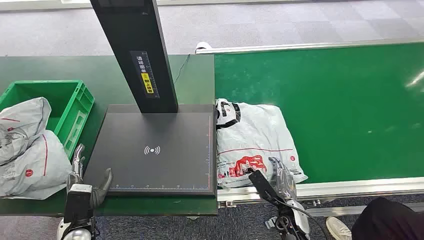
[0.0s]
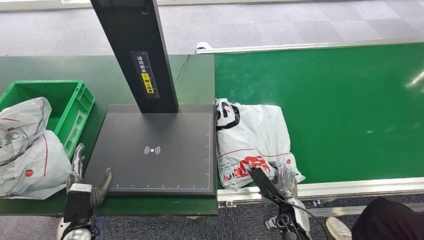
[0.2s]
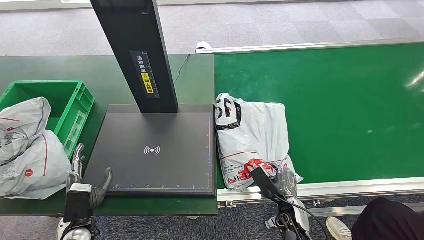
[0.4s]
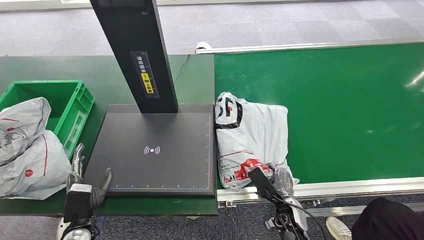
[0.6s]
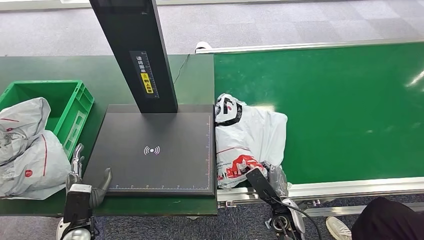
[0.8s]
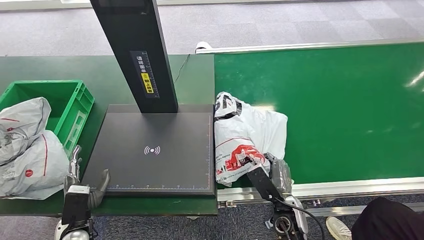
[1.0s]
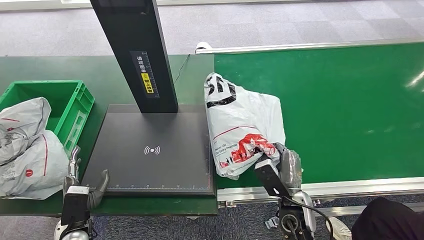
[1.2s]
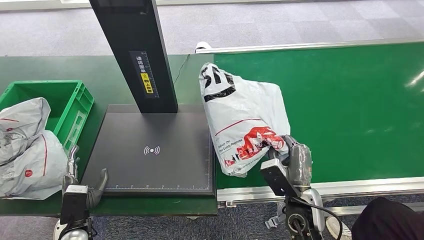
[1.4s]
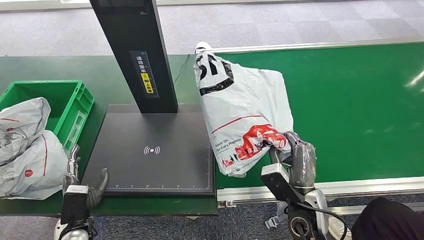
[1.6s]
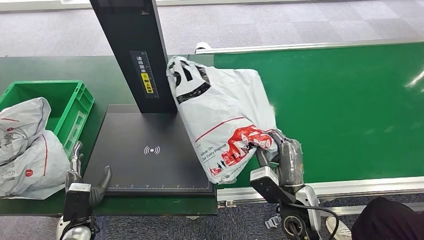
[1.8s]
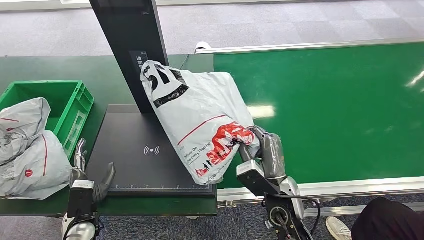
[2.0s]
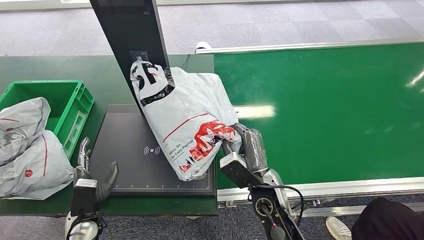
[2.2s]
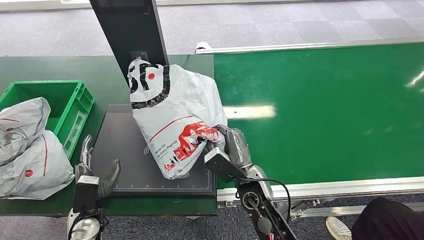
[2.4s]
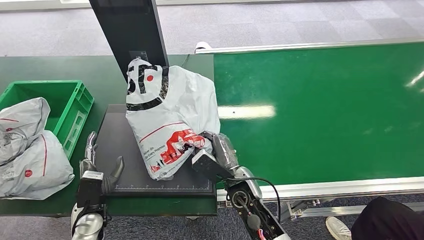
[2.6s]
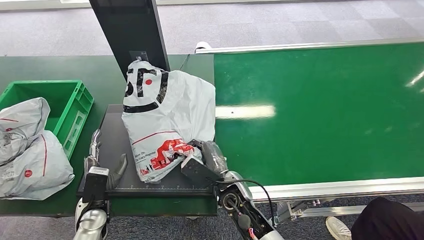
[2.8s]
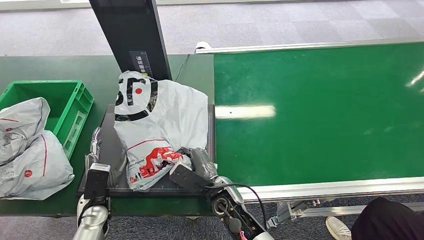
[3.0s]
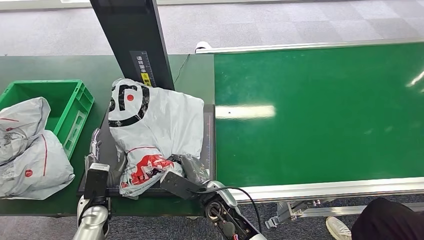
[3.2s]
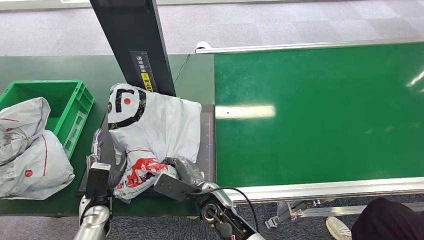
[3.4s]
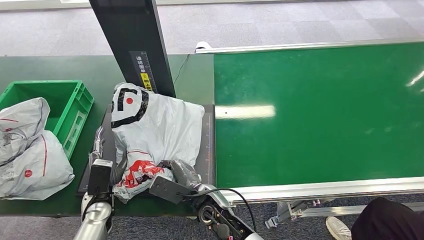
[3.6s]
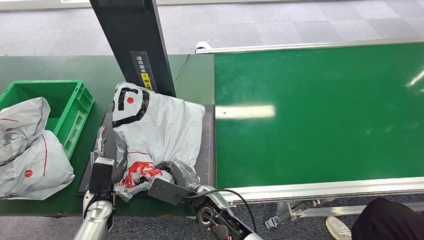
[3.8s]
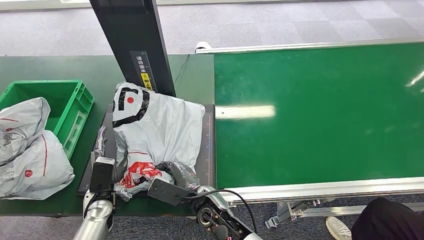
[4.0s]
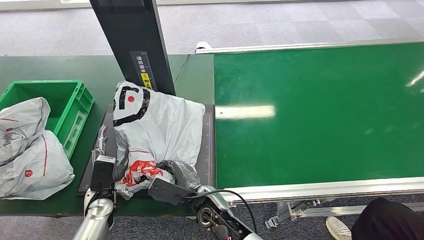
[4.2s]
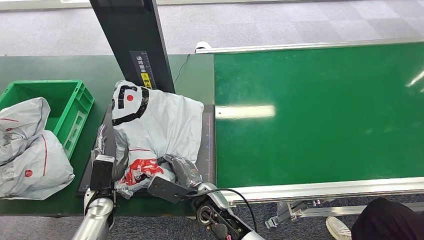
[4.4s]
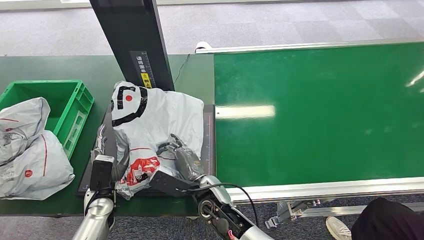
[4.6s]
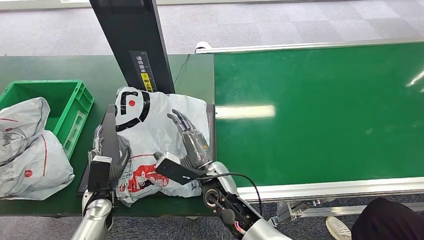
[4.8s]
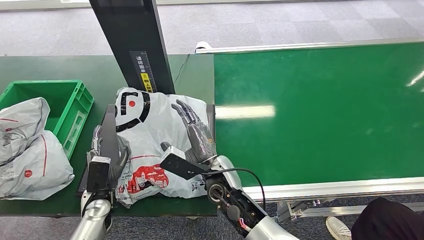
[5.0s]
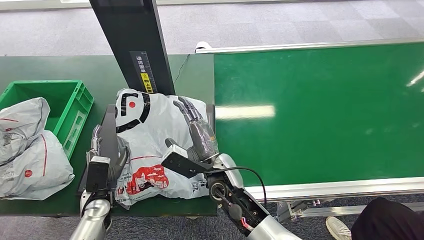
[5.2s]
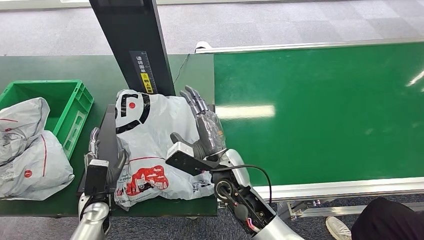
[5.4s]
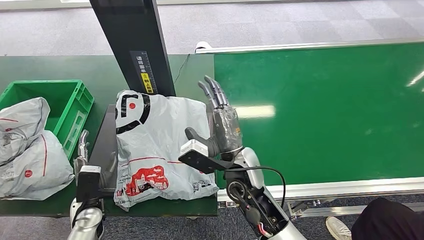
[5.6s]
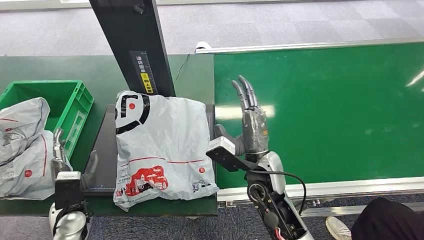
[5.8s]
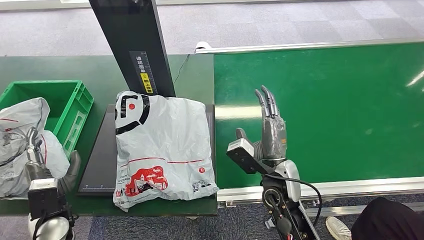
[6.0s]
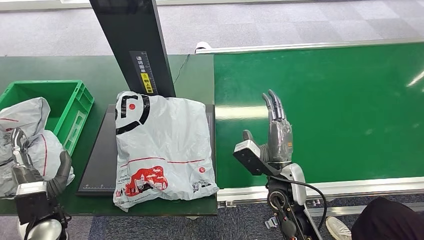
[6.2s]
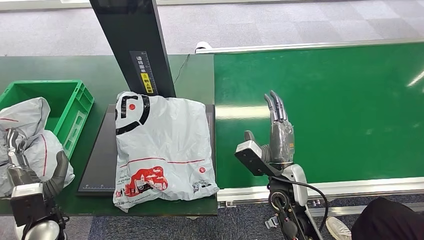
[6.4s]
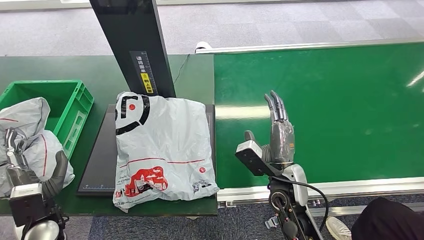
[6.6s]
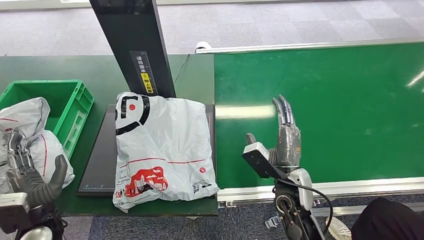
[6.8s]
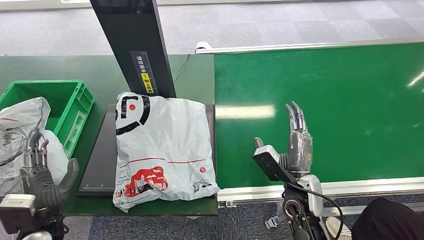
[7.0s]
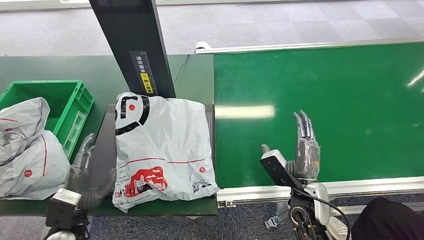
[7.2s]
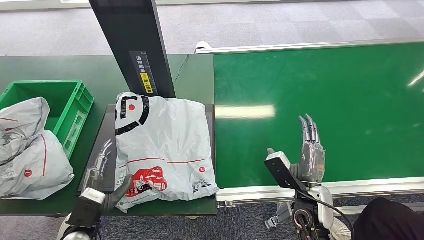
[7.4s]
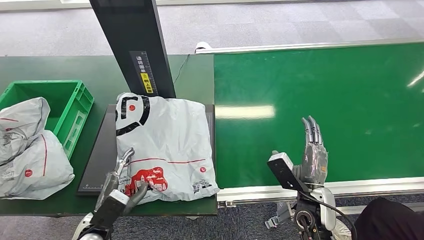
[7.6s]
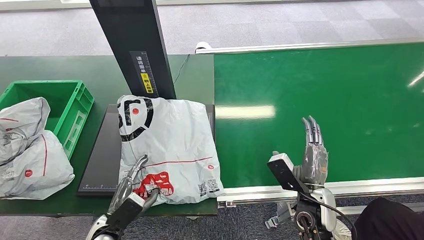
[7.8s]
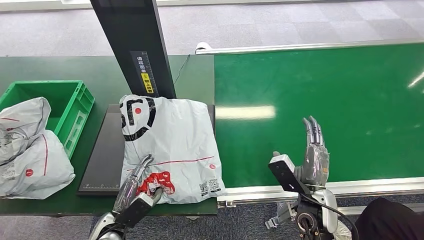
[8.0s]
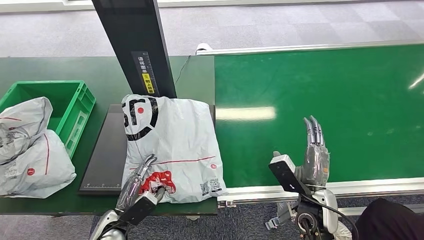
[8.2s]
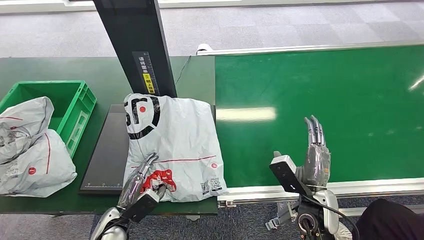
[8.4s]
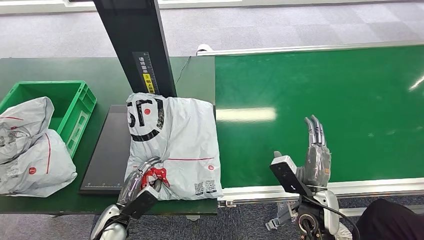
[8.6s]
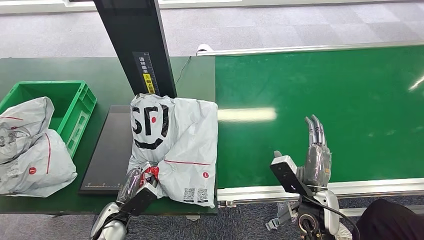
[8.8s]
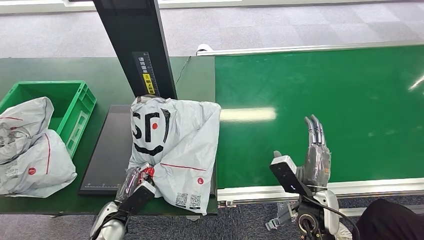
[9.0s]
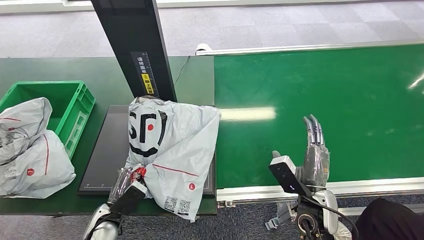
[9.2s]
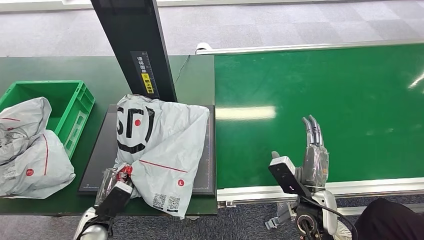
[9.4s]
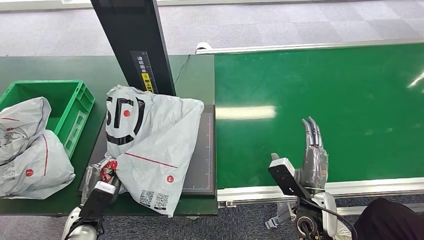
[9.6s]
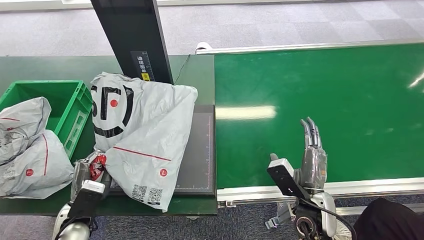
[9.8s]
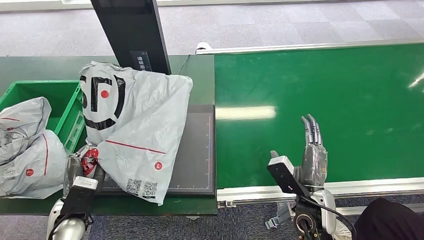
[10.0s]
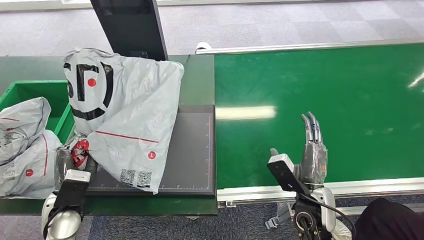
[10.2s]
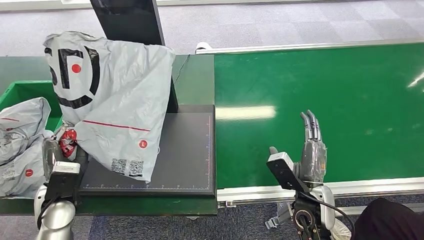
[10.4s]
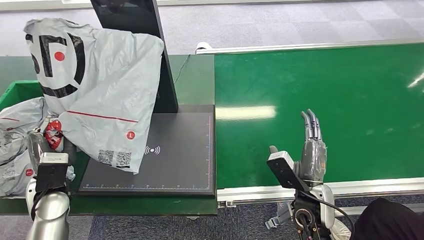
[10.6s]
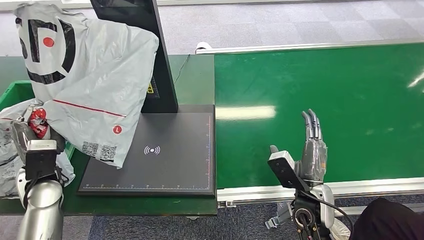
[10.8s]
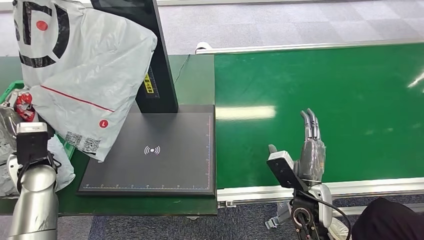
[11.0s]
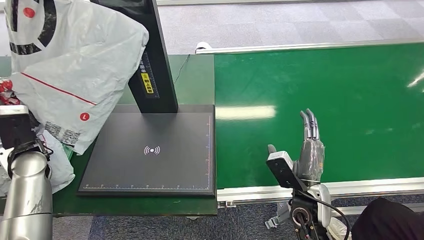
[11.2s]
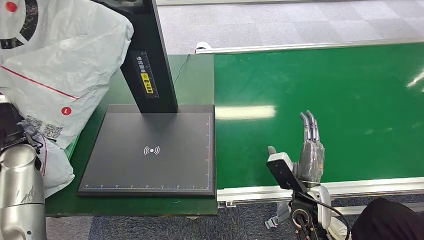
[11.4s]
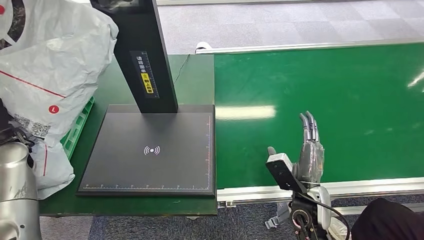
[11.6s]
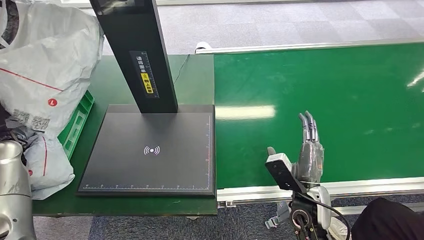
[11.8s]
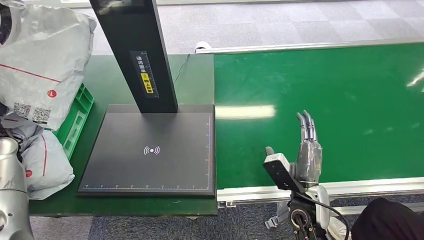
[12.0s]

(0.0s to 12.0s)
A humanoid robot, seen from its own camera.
Step, 0.0s - 1.8s: Pick up the package from the conveyor belt.
Step, 2.0s - 5.4s: Place the package onto the inbound machine.
Step, 5.8s - 10.4s: Pick up the package from the inbound machine.
3.0s - 4.4s: The hands stay close to where they were, moving slightly.
4.4s - 6.0s: The right hand moves to the right and upward, some 15 cm. Meanwhile the left hand heads to the left, covering about 5 cm.
6.0s - 7.6s: The left hand goes some 10 cm to the right. The right hand is displaced to the right, backward and downward by approximately 10 cm.

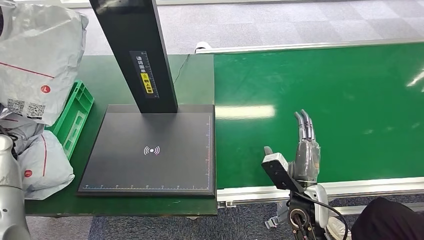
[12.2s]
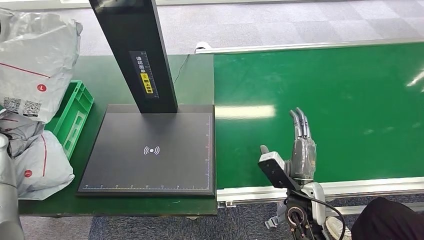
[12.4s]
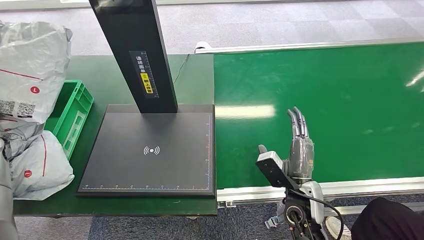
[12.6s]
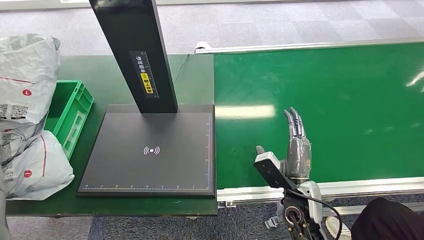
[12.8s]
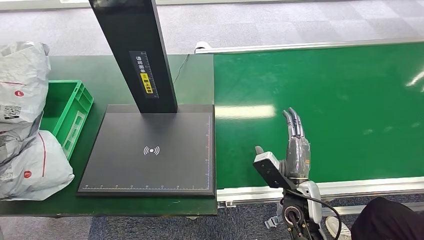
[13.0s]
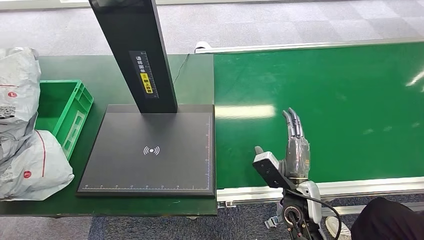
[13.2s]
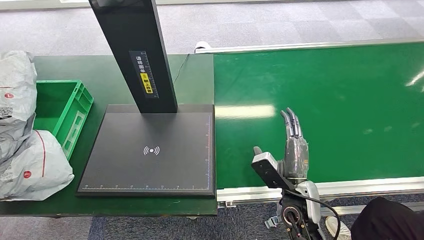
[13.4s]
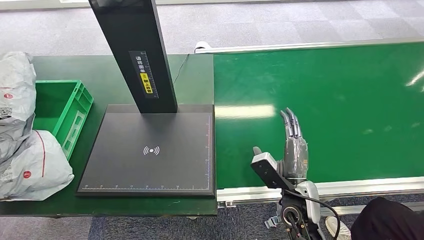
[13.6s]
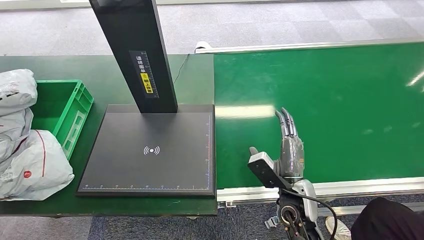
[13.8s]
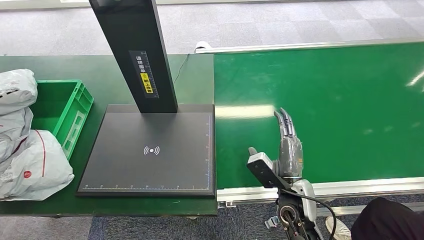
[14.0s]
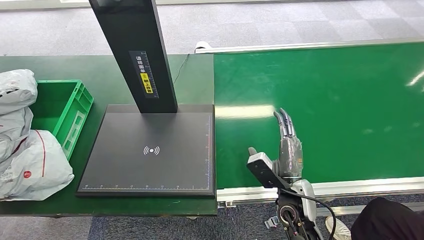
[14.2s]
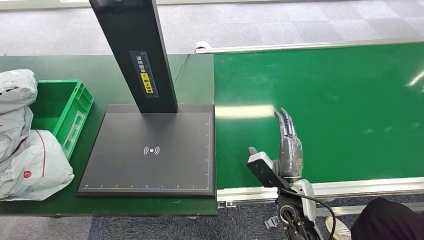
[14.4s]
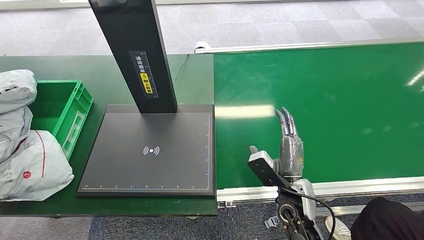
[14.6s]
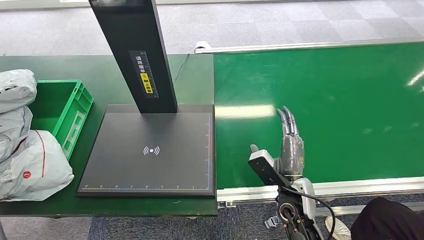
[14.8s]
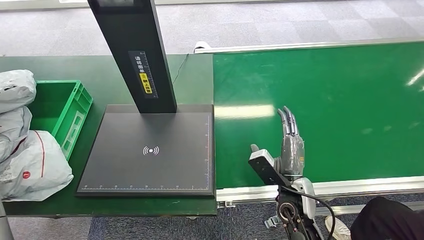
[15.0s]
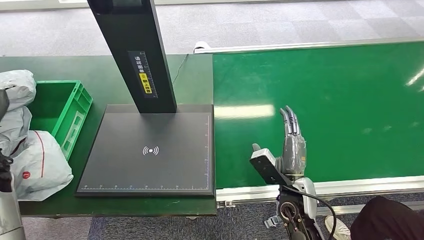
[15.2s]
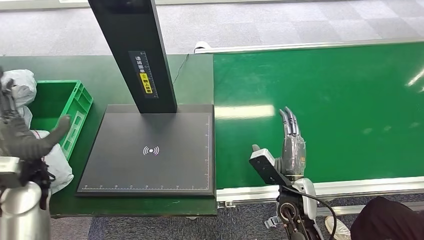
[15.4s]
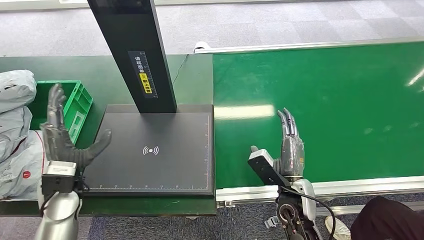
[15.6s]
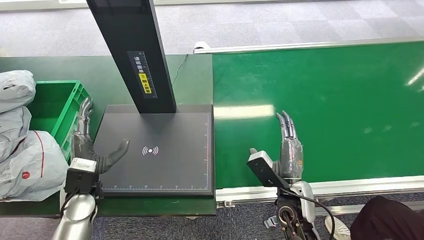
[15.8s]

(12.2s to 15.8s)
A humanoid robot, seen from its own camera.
Step, 12.2s - 15.8s: Place the package into the parcel locker.
12.2s - 14.0s: The left hand goes some 10 cm to the left and backward.
14.0s - 15.8s: The left hand shifts roughly 30 cm to the right.
